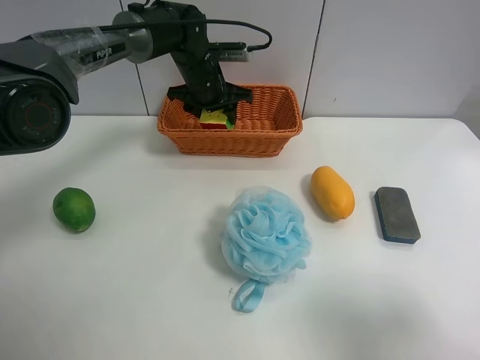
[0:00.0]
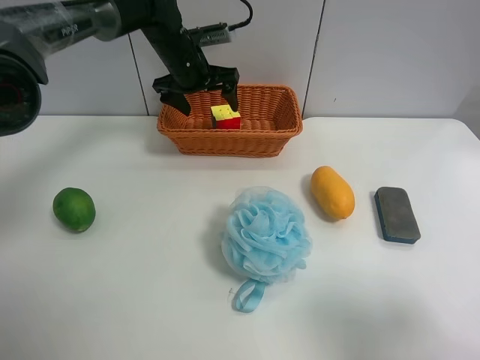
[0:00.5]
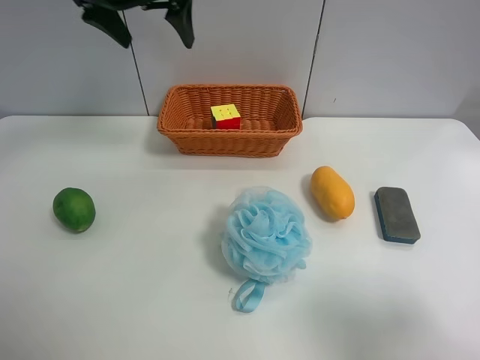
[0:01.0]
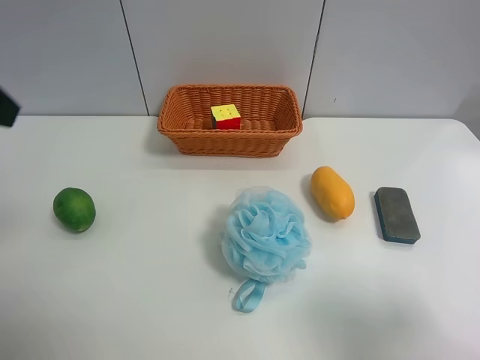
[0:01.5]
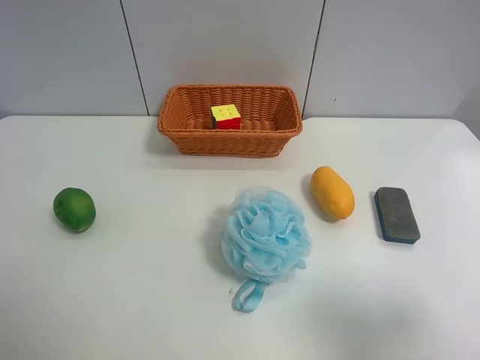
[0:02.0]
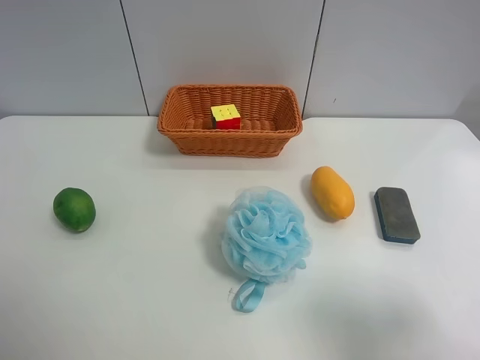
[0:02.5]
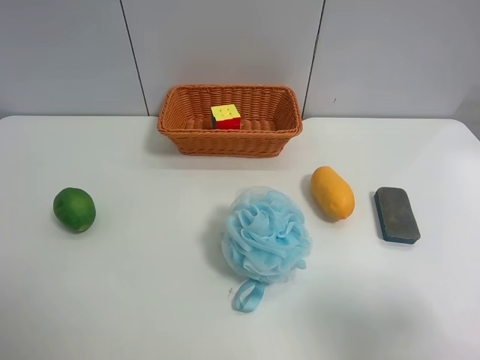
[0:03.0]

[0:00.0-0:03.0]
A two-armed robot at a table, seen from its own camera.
Task of the whole recording: use the left gripper to grab items from the table and place them in the basket.
0:00.0 to 0:01.5: The left gripper goes about 40 cm backward, upward and to the left, and opens.
